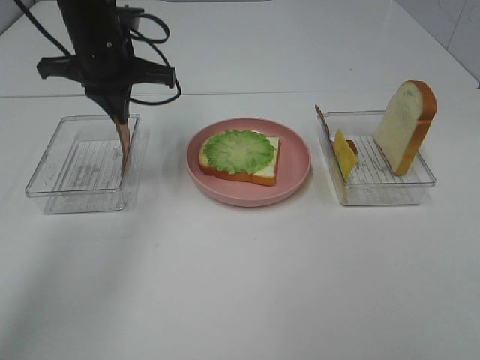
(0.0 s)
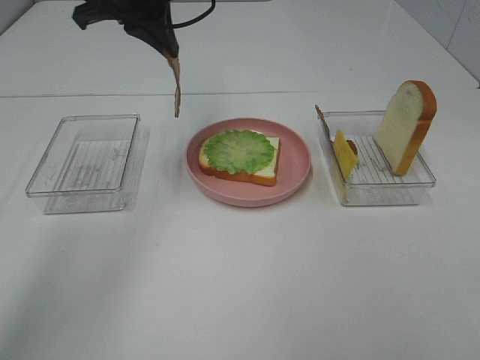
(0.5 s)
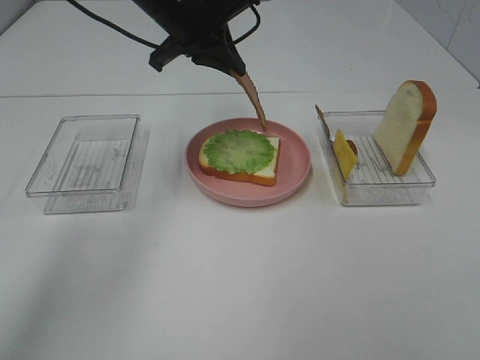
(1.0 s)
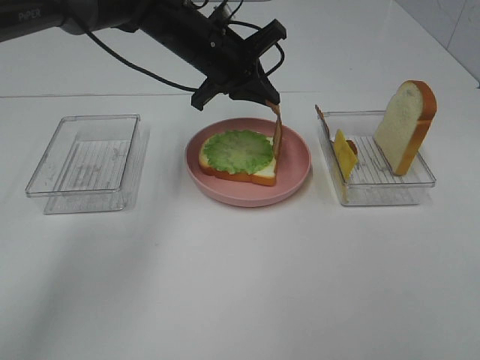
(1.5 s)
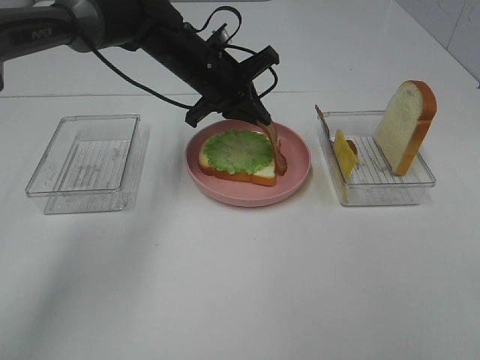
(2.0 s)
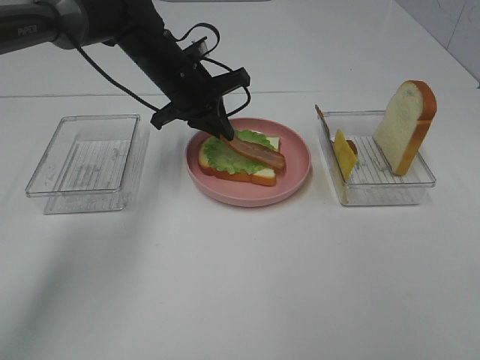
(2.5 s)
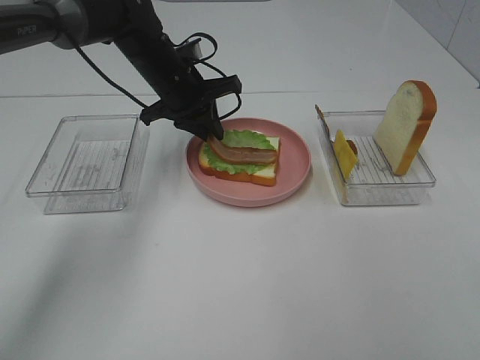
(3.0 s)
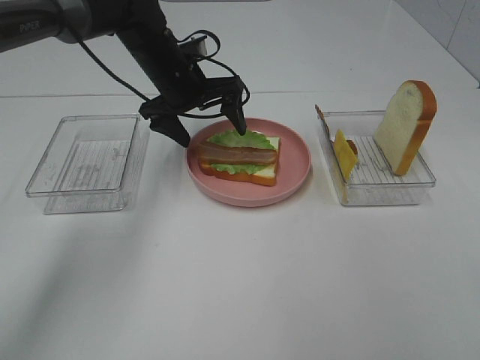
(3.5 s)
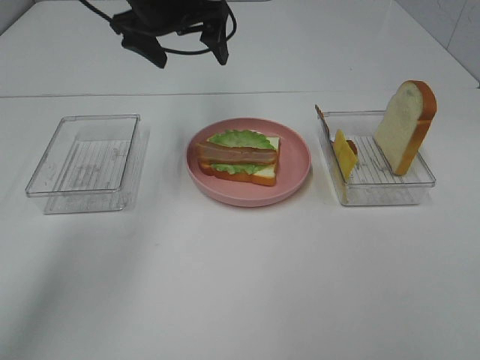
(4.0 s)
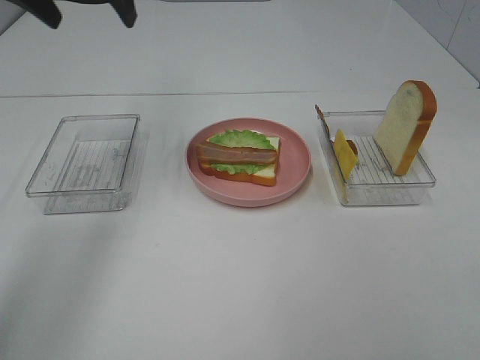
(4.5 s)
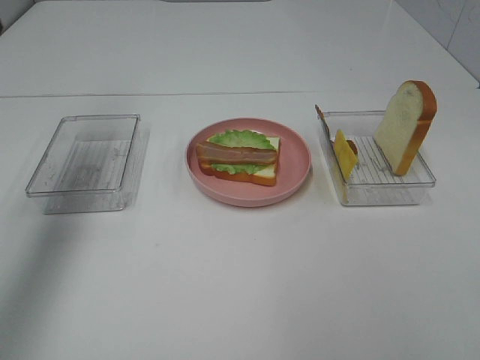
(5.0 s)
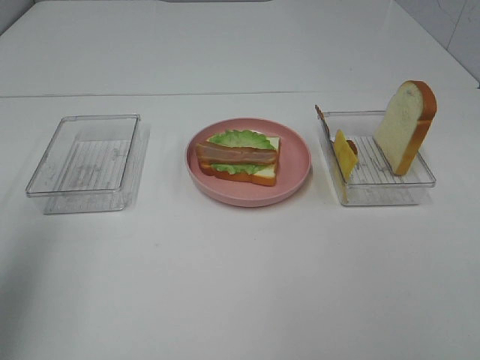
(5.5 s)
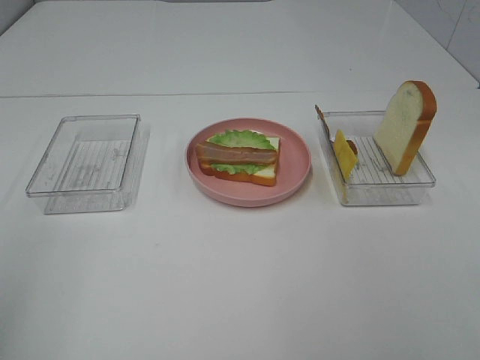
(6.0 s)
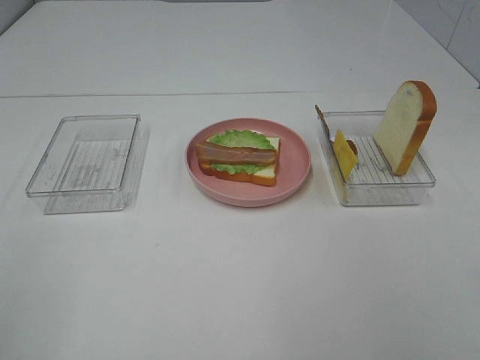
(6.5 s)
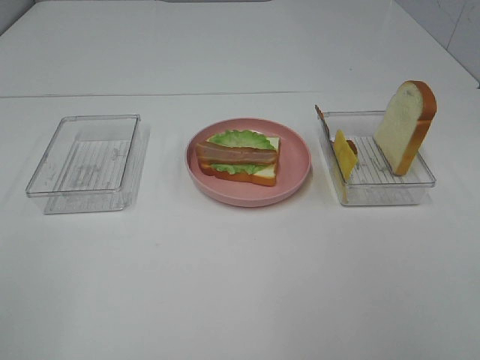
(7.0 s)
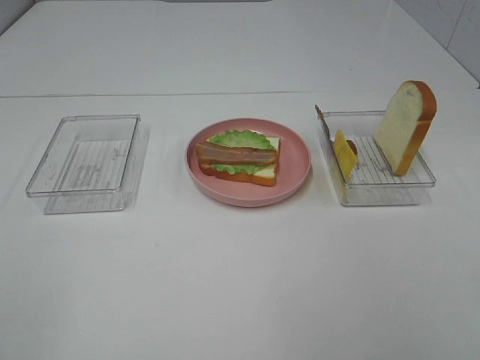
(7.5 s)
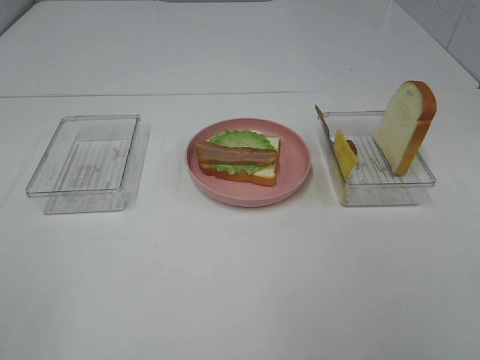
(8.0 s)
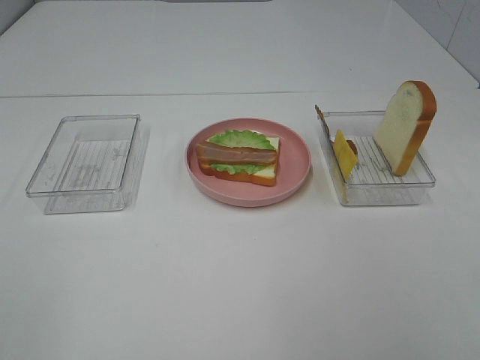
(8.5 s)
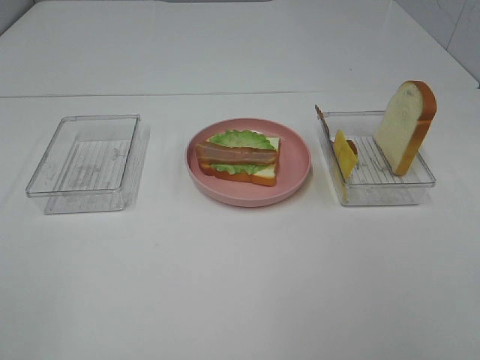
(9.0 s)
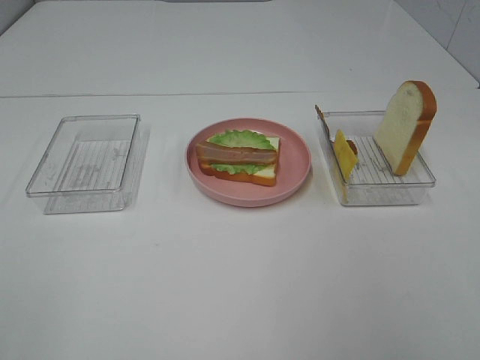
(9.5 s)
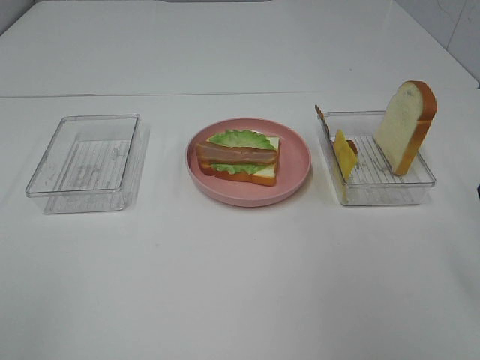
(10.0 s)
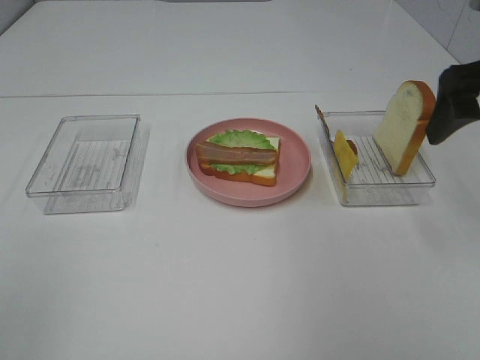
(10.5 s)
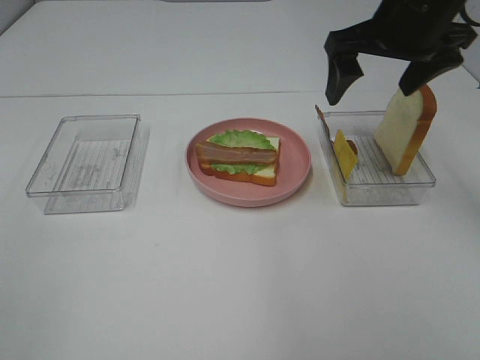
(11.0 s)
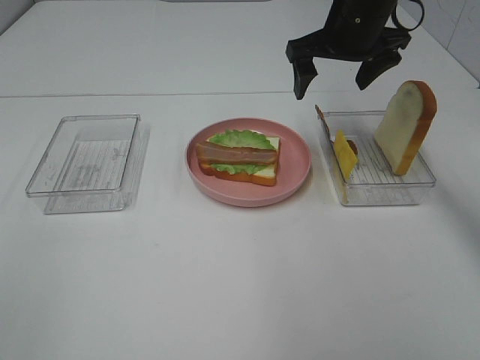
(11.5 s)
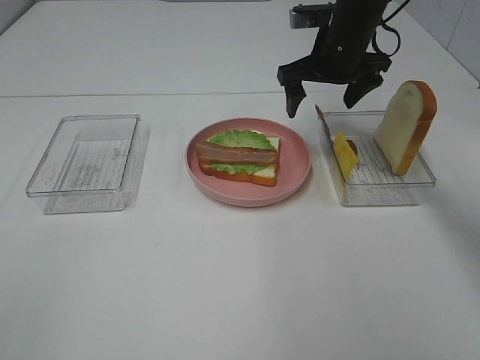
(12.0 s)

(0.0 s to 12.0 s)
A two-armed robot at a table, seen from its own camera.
Task of the whole recording: Make sandwiches.
Step, 0.0 s - 3.5 s: Left hand:place bacon on lettuce slice.
0.0 s - 2.0 s: The left gripper goes some 10 cm to the right and downward.
2.0 s - 4.0 s: The left gripper heads upward and to the left, covering roughly 10 cm, and opens.
4.0 s - 6.0 s: The left gripper travels backward and to the left by roughly 50 cm.
10.0 s - 12.0 s: The right gripper moves forward and to the left, some 30 cm.

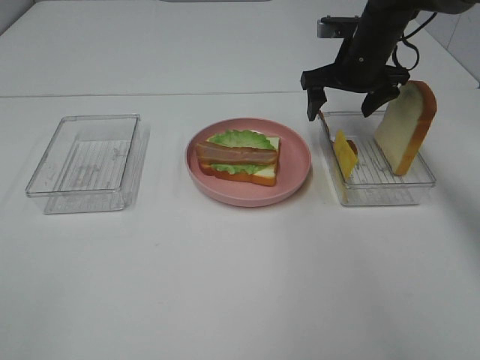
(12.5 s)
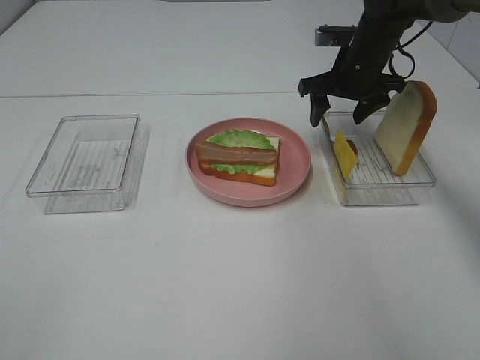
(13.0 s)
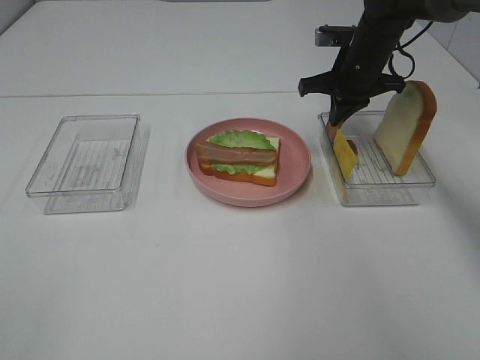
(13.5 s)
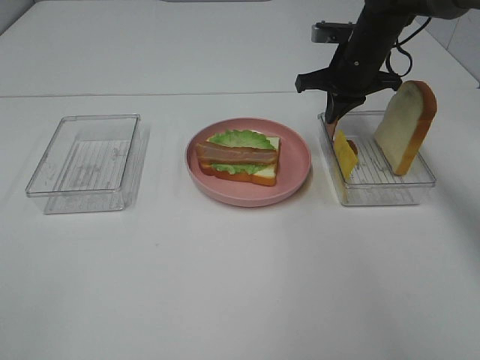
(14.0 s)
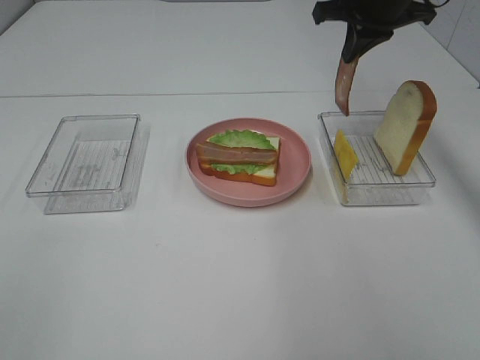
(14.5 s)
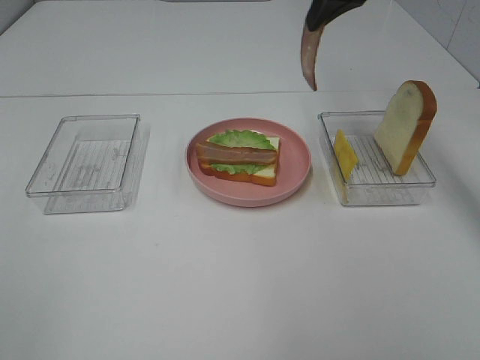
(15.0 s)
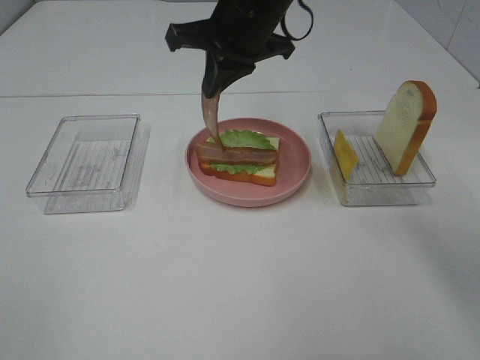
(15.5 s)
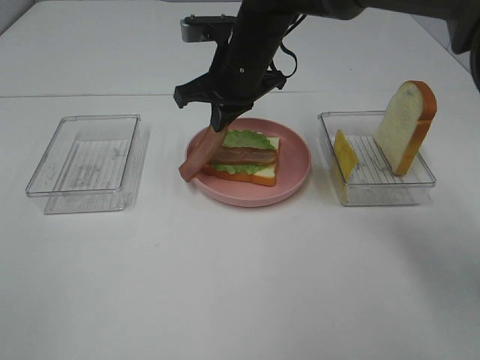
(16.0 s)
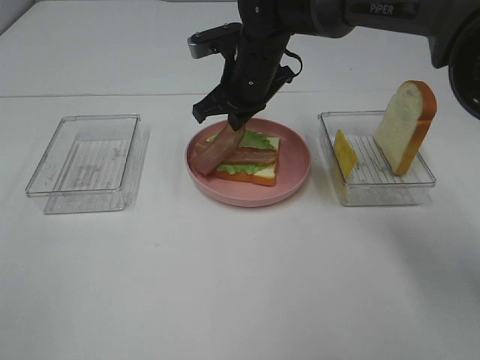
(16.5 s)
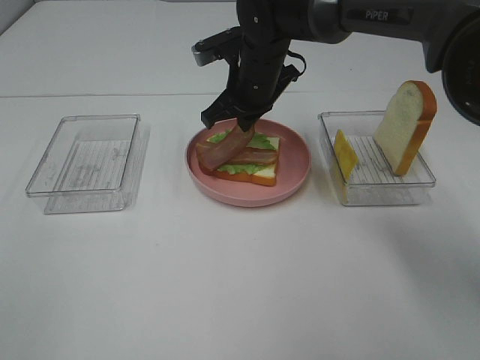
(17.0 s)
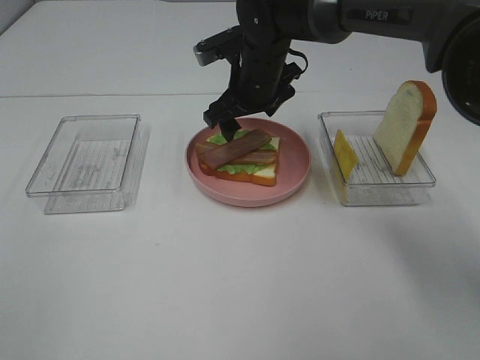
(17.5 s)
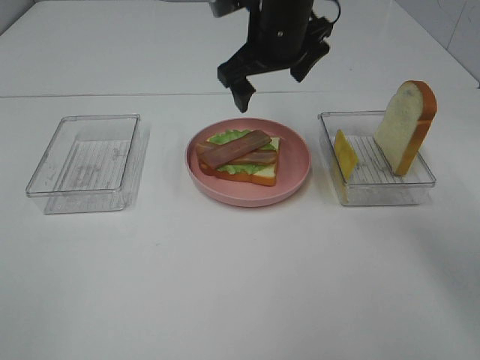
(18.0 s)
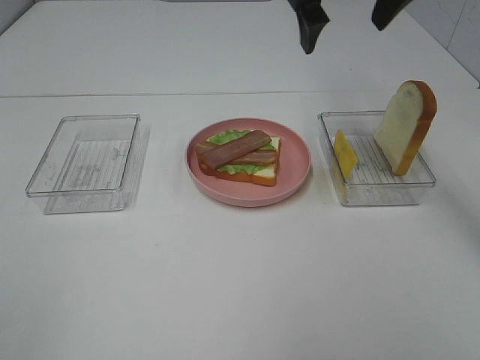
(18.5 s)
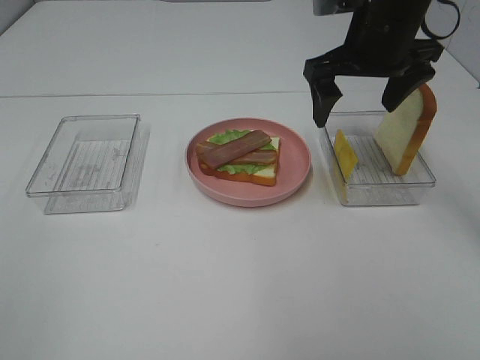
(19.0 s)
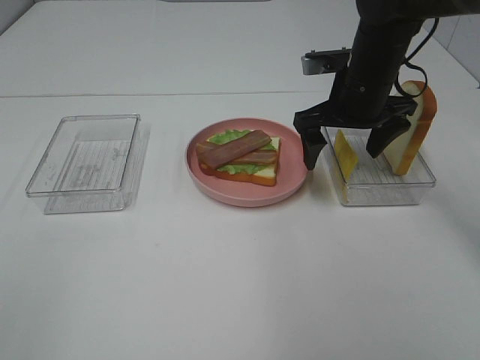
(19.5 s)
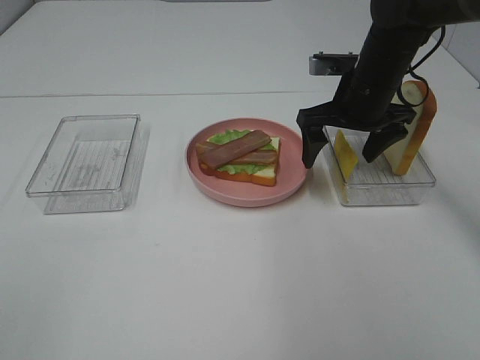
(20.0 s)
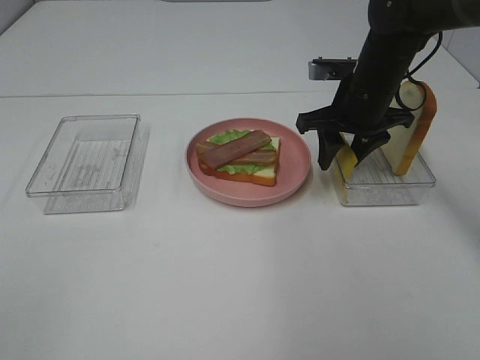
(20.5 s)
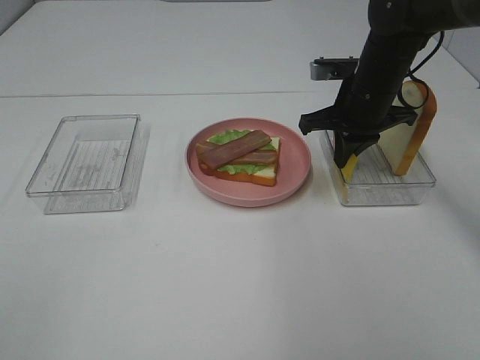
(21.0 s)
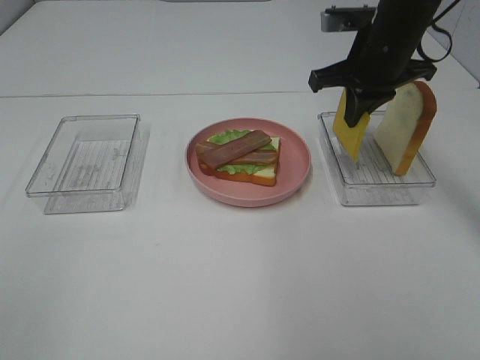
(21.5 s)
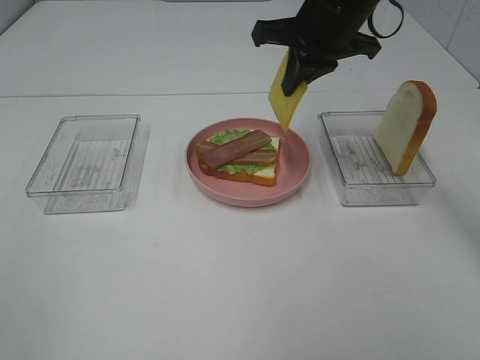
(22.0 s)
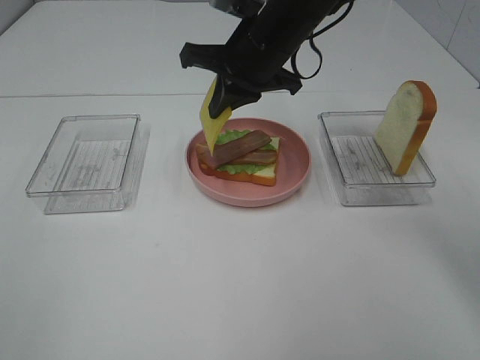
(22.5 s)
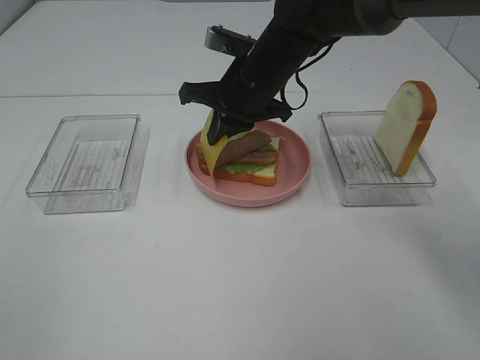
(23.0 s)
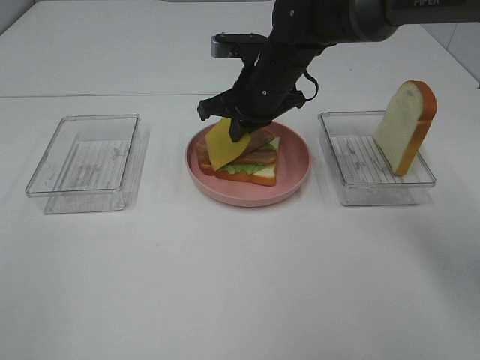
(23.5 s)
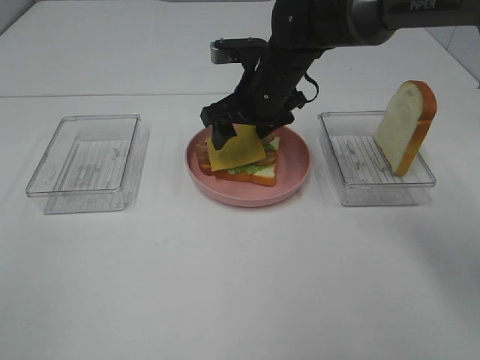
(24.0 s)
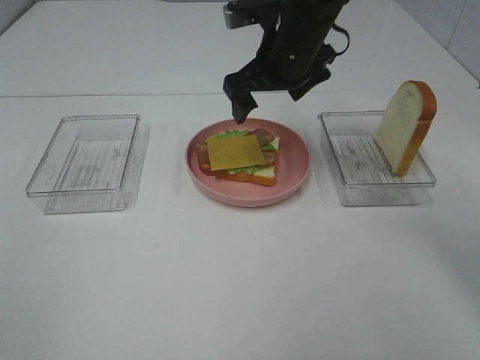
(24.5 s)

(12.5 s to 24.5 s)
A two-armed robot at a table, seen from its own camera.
Task of the whole recording: Make sandwiches.
Step, 14.5 s - 17.5 s: Right hand:place bacon on bacon.
Step, 18.0 s - 21.0 s: Right hand:grab the cheese slice.
Step, 21.5 s - 24.0 s: Right hand:place the cheese slice on top of the bacon.
12.5 s - 14.5 s: The right gripper travels upward by some 10 cm, and closes.
14.5 s - 16.5 s: The right gripper travels to the left and downward by about 20 cm.
16.5 s - 18.5 s: The right gripper is displaced upward and to the right by roughly 20 cm, and opens.
18.5 s - 20.5 s: The right gripper goes some 15 cm downward, and closes its fingers.
20.5 s - 22.5 s: The right gripper travels to the left and upward by approximately 15 cm, and closes its fingers.
22.5 s - 24.5 s: The right gripper opens.

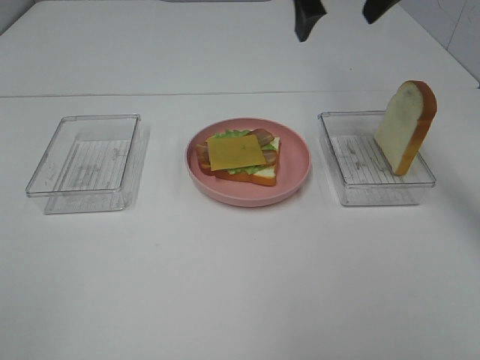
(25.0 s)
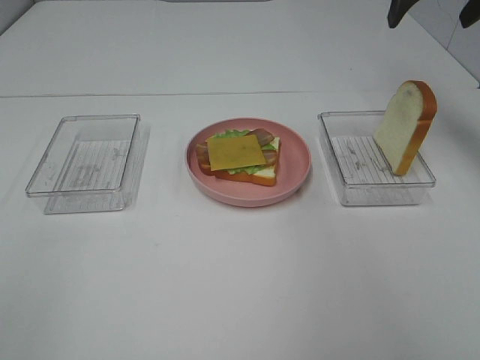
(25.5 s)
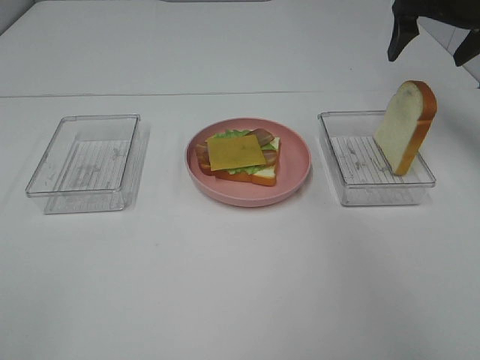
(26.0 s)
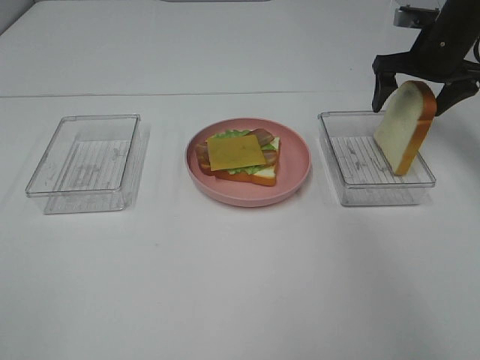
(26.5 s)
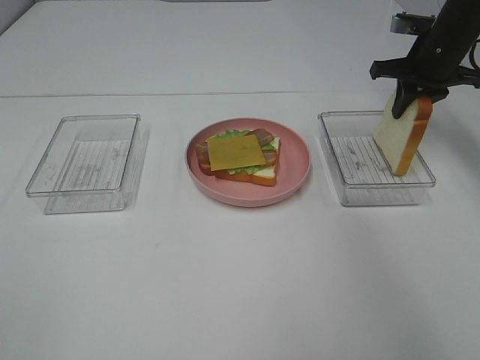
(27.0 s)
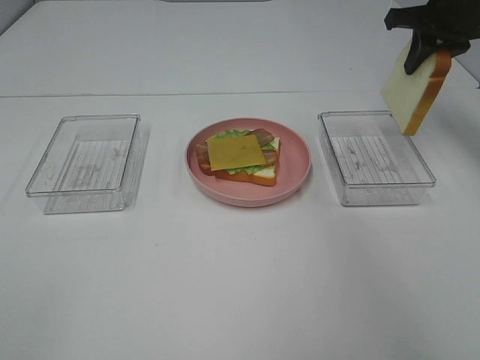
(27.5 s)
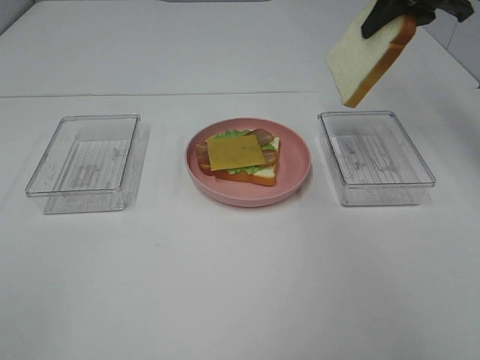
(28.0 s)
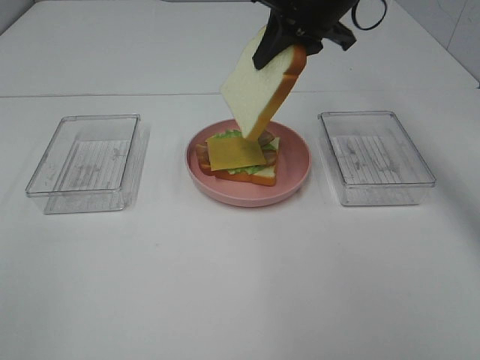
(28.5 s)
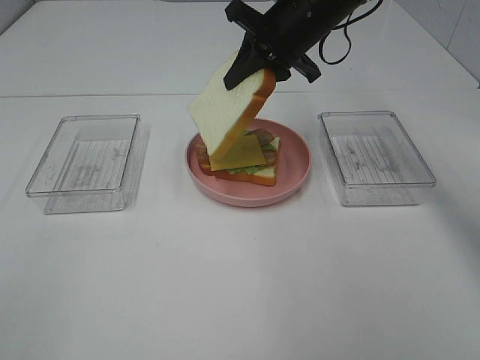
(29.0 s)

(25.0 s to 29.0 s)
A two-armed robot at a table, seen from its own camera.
Task of the whole recording: Make sandwiches.
Step, 25.0 s - 27.0 s: Right hand:grab the bread slice.
25.0 s - 27.0 s: The right gripper moves downward, to the right and forward, roughly 20 cm, and closes its fingers.
27.0 s - 29.0 s: The right gripper travels to the left by approximately 20 cm.
